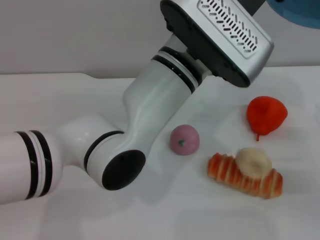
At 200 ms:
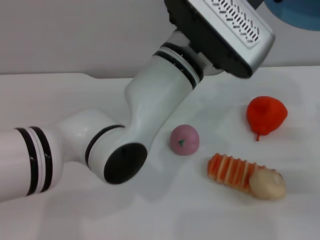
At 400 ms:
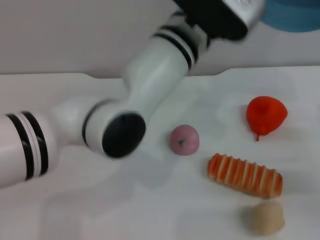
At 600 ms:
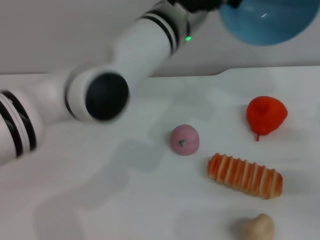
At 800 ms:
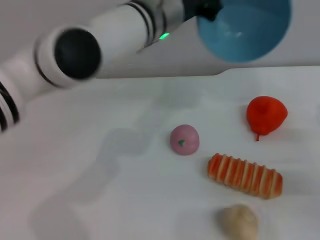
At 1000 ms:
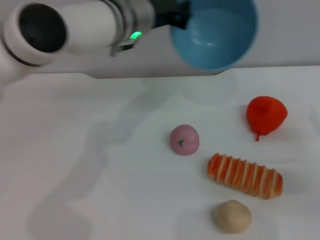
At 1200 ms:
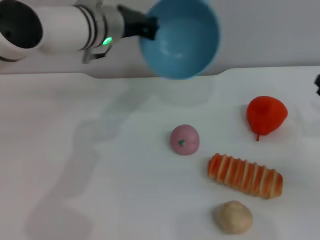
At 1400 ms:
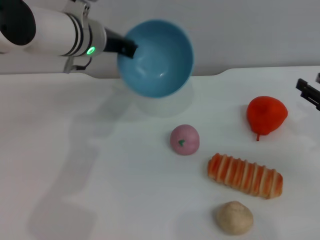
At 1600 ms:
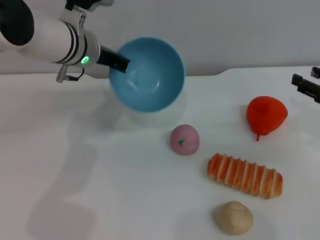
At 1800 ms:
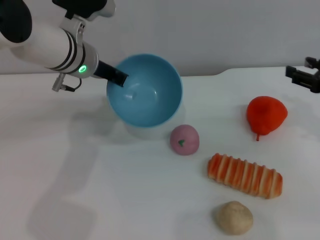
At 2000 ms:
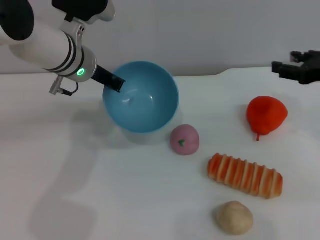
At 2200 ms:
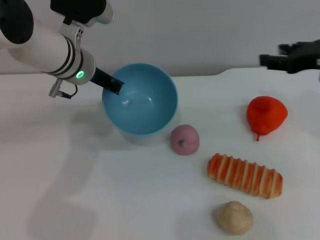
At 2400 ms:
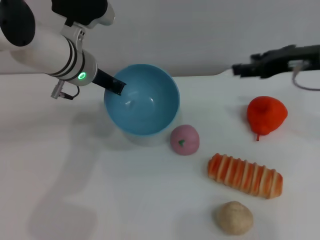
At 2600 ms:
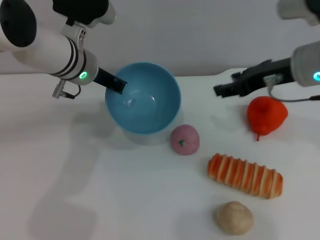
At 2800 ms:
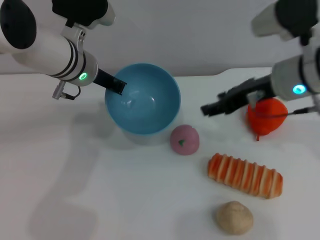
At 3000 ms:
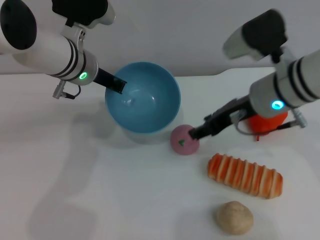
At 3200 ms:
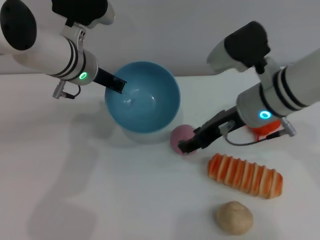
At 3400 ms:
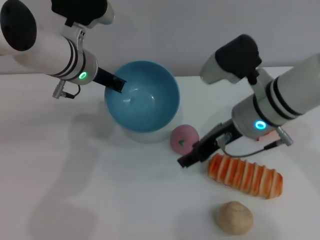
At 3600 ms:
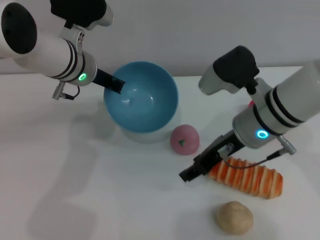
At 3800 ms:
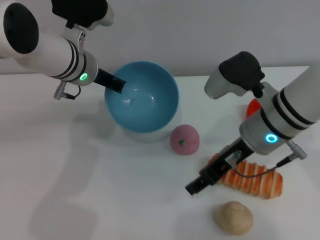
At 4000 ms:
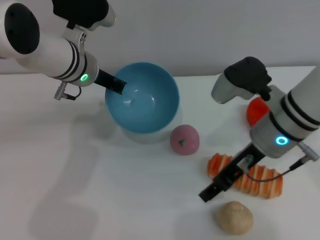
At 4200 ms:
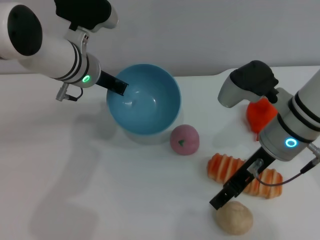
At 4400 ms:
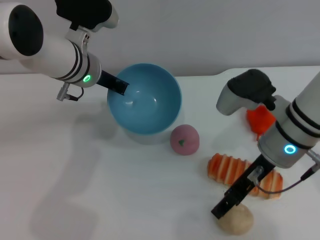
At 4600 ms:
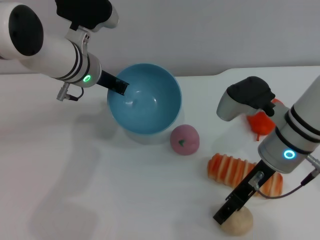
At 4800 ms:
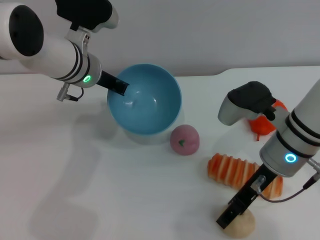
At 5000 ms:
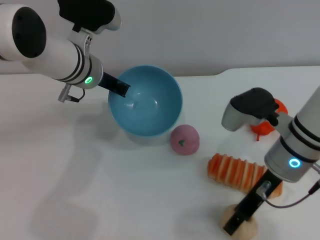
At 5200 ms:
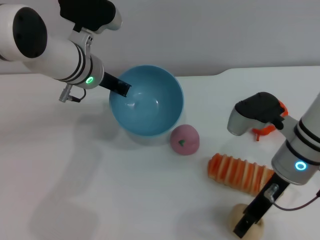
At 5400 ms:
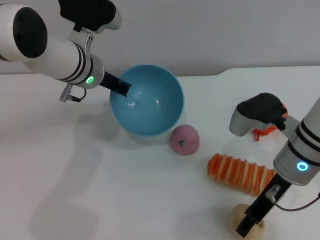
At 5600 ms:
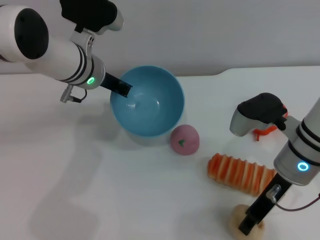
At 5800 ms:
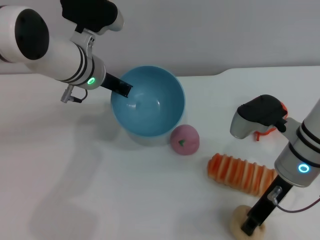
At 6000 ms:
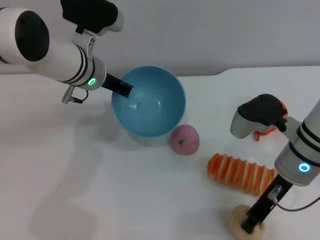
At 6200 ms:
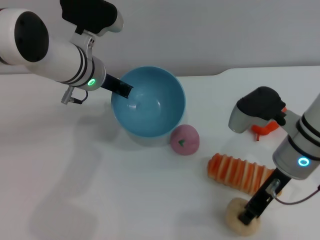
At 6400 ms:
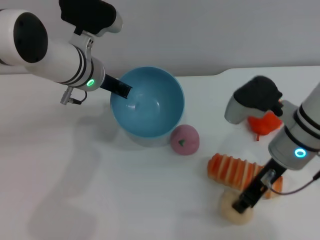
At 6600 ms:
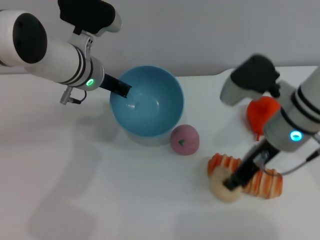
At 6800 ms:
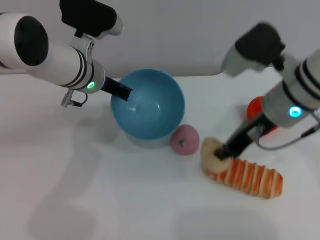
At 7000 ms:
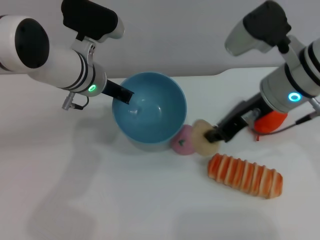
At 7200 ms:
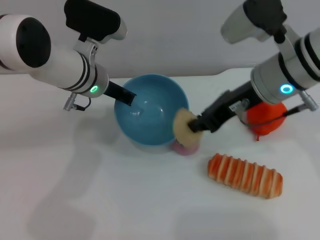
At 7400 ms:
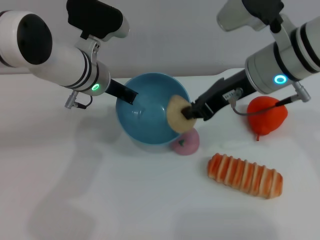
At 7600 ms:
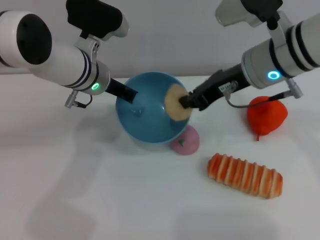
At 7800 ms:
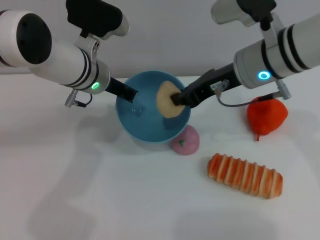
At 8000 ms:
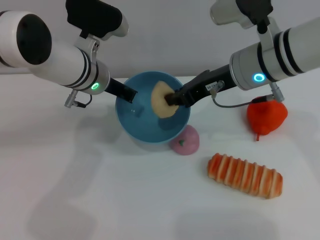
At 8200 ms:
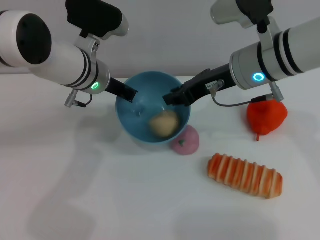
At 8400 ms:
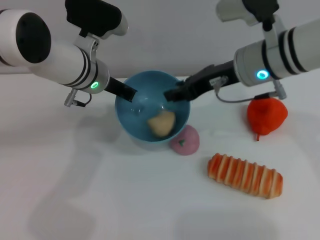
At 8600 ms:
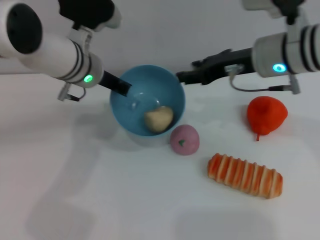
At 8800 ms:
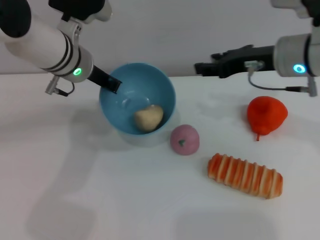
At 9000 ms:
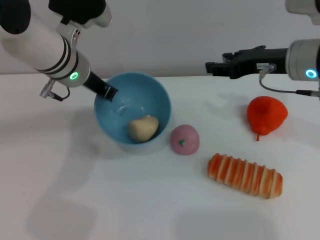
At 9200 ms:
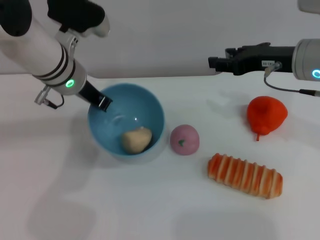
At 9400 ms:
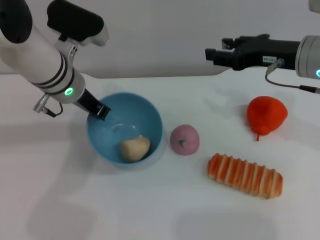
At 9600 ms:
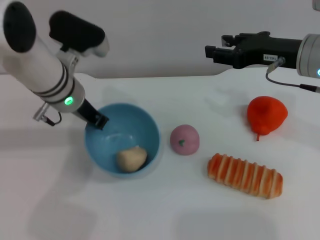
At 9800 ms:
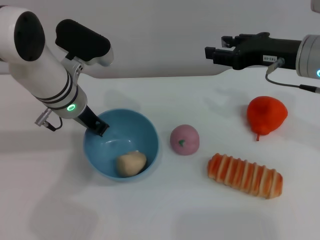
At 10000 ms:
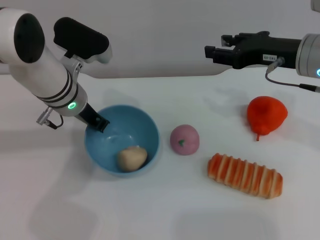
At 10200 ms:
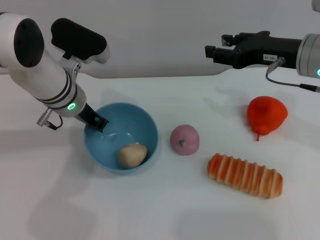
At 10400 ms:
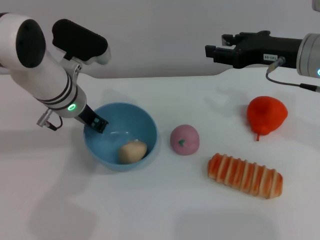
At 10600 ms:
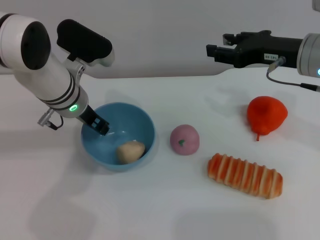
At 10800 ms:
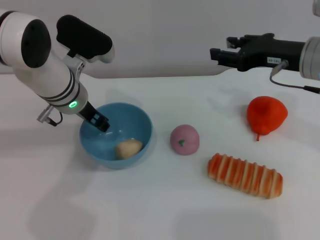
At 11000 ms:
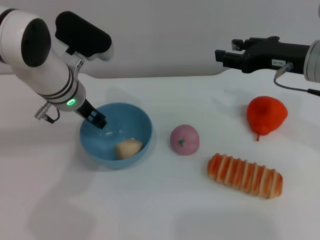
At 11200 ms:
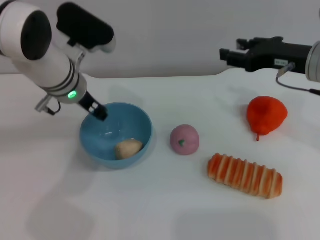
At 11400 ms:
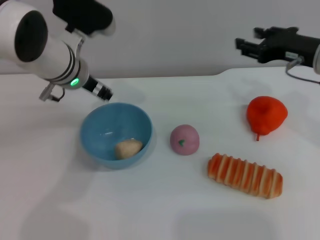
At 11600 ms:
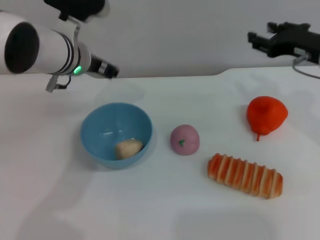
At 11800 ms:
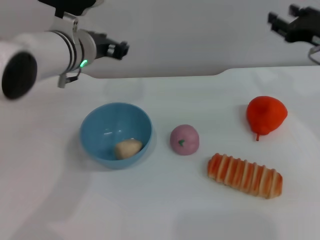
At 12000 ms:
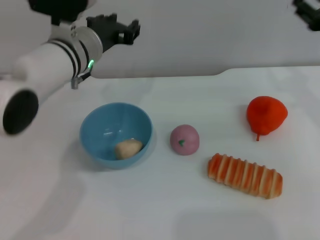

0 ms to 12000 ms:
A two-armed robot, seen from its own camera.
Task of the whole recording: put the egg yolk pastry into the blue bowl and pour it out repeatedly.
Step, 1600 ms to 6400 ms: Pick up the egg yolk pastry with the right gripper.
Step, 6600 ms to 8400 ms: Place the egg yolk pastry into the bowl.
Step, 8600 ms to 11600 ms: Place the bowl on the table.
0 ms to 1600 ms: The right gripper heads upward, covering about 5 cm. The left gripper moves to the left and forward, some 20 cm.
1600 ms to 3000 ms: The right gripper is displaced to the left by roughly 20 cm.
4400 ms to 6000 ms: The right gripper closes.
6000 ms to 7600 ms: The right gripper travels upward and forward by some 10 cm.
7600 ms to 9000 ms: The right gripper heads to the right, covering roughly 5 cm, and opens its fingers.
10400 ms to 12000 ms: The left gripper opens up, while the right gripper moves to the right, approximately 10 cm.

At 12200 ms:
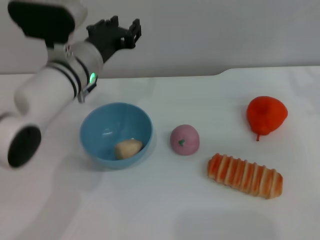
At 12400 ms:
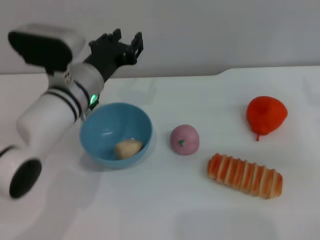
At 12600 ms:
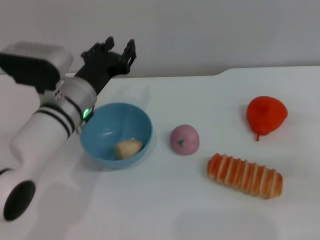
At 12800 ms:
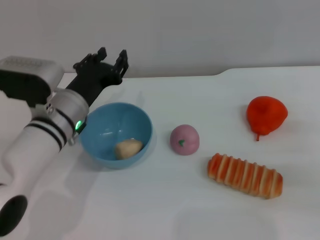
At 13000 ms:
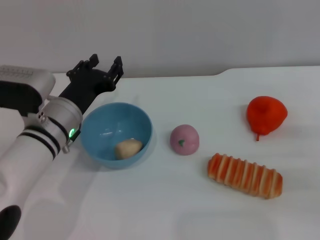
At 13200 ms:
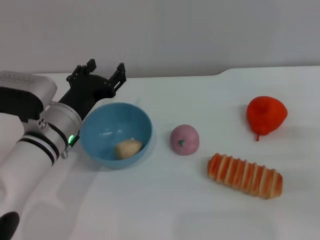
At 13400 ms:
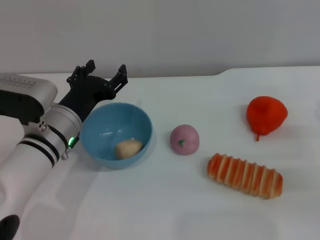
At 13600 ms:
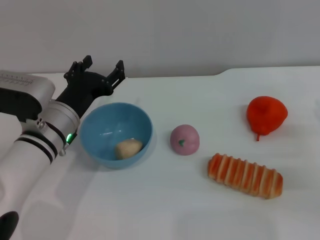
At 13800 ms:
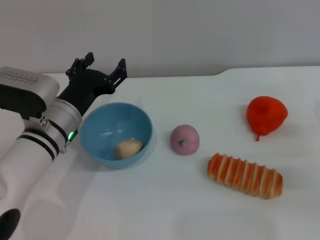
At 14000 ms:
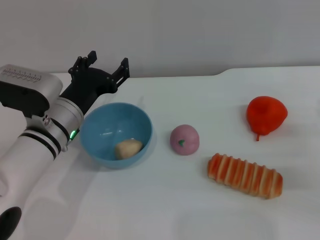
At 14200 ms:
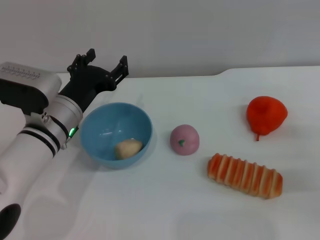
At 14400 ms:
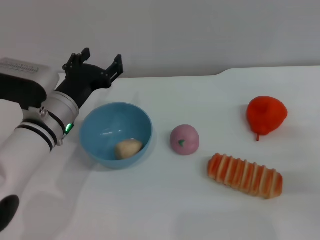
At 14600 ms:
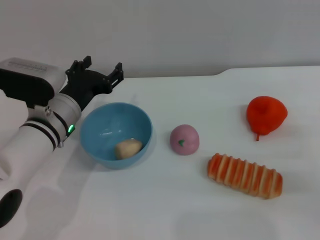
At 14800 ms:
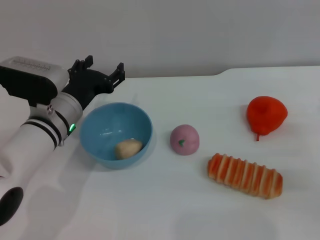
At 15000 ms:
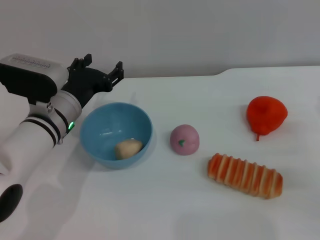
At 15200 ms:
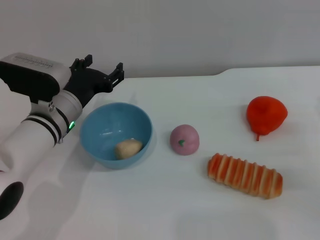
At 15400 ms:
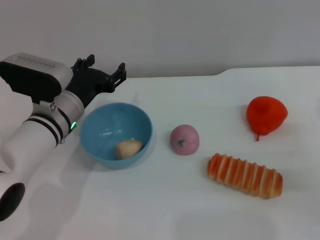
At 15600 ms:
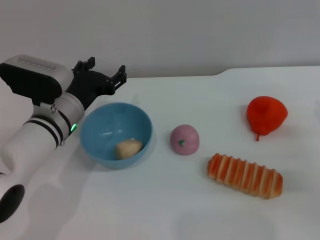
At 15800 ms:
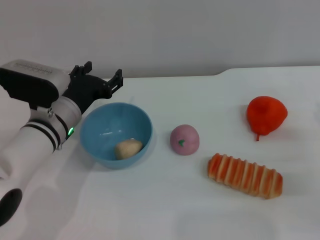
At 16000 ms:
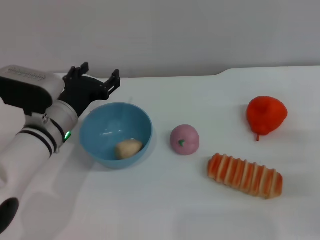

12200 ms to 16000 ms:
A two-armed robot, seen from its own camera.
Task of the whole recording: put the egg yolk pastry into the blue bowl and pour it out repeatedly.
12200 ms to 13400 ms: The right gripper travels downward and backward by approximately 10 cm. The left gripper goes about 10 cm backward and downward.
13400 ms to 16000 ms: The grippers stay close to where they were, moving slightly.
